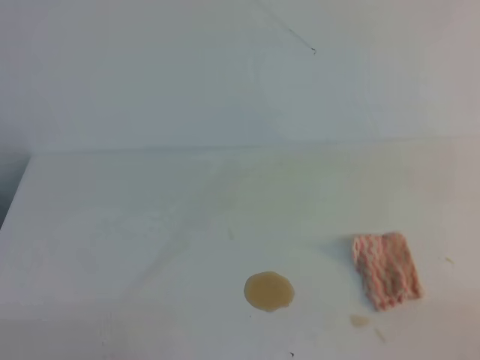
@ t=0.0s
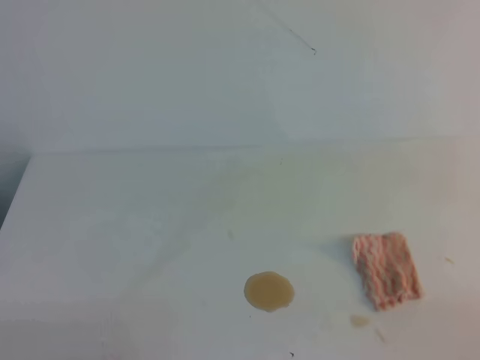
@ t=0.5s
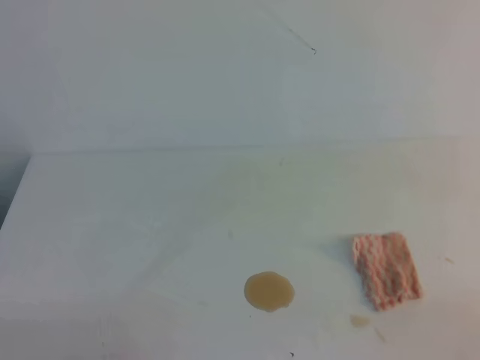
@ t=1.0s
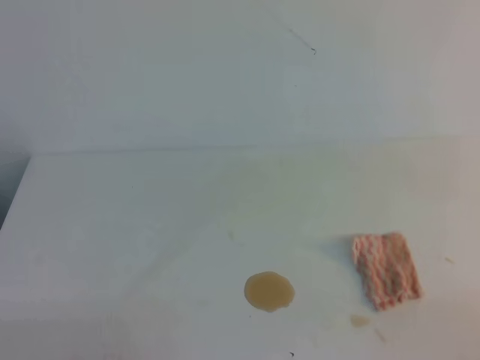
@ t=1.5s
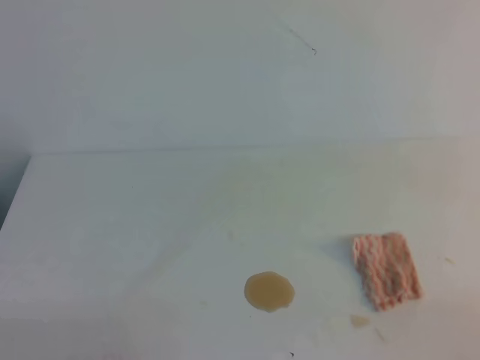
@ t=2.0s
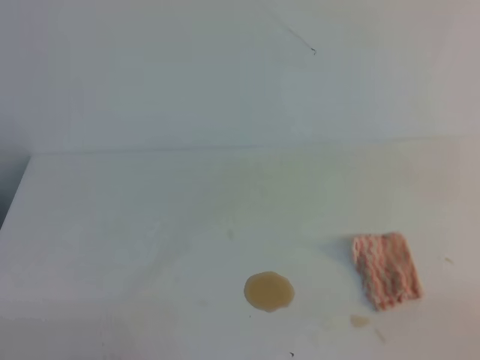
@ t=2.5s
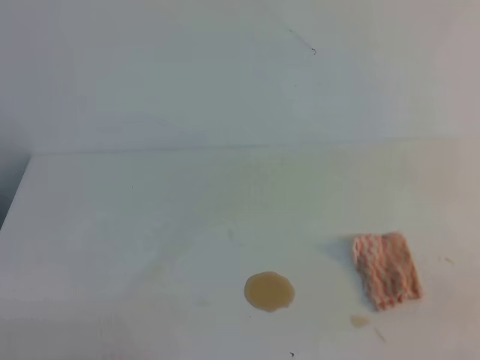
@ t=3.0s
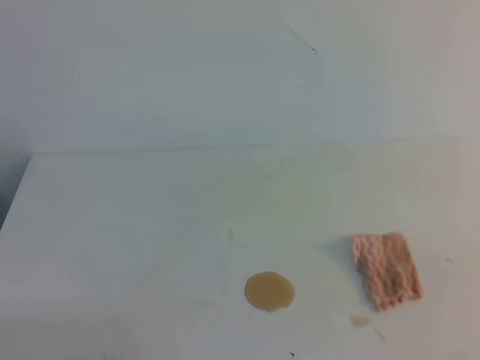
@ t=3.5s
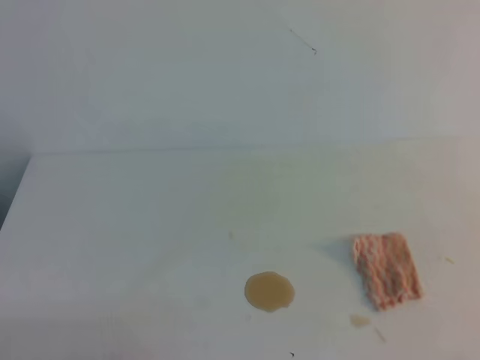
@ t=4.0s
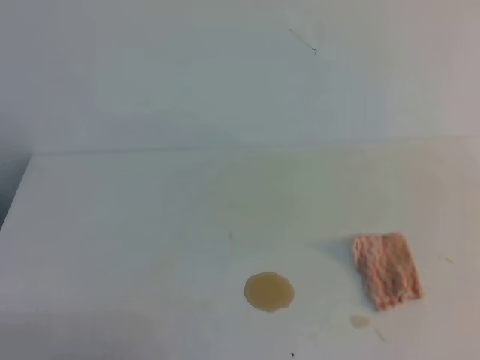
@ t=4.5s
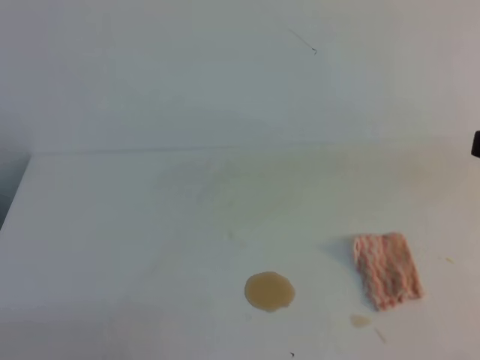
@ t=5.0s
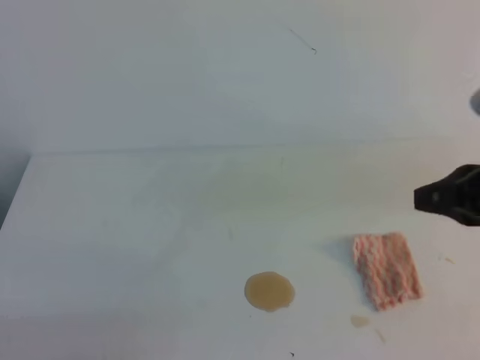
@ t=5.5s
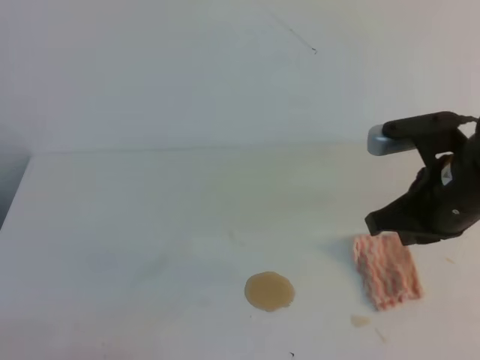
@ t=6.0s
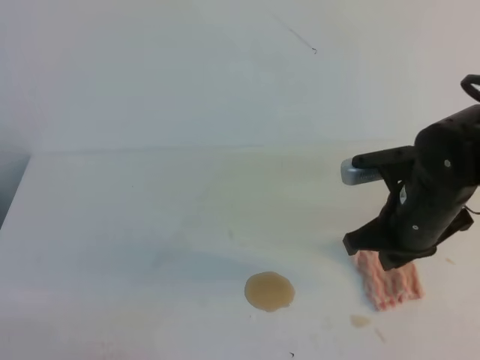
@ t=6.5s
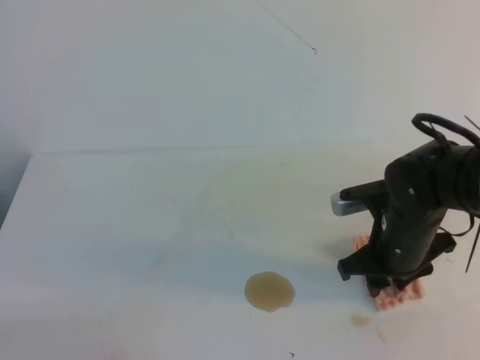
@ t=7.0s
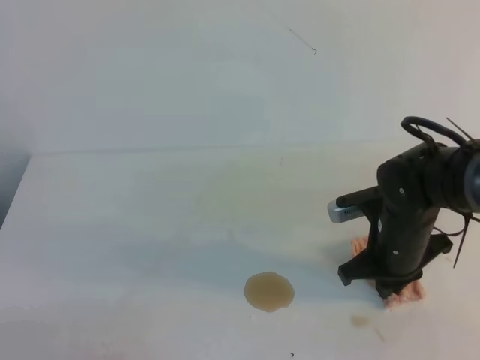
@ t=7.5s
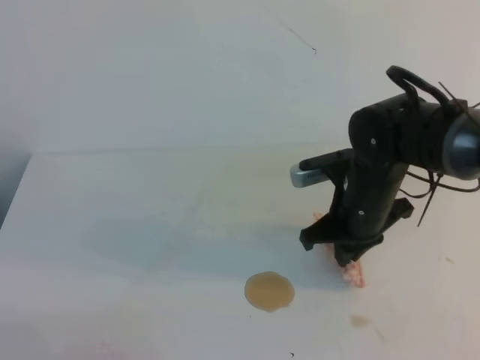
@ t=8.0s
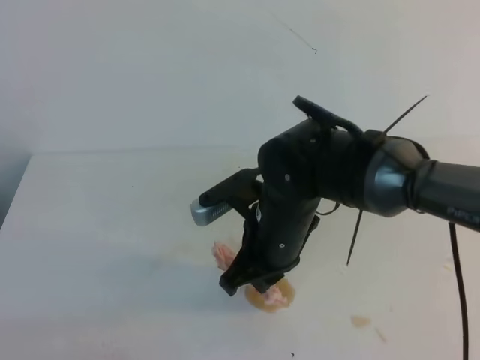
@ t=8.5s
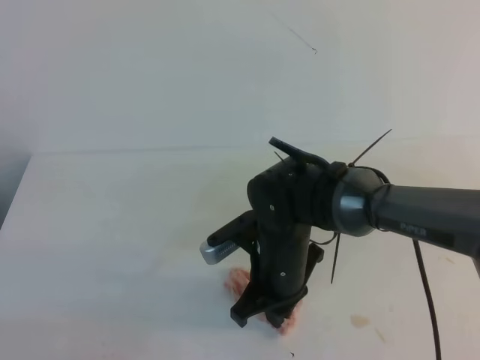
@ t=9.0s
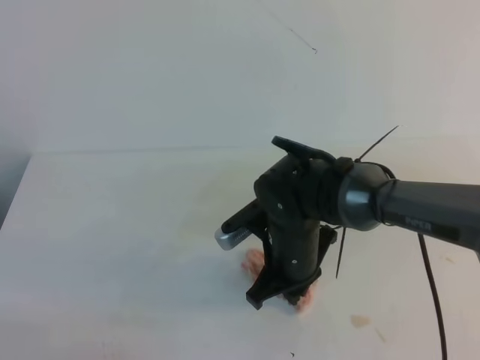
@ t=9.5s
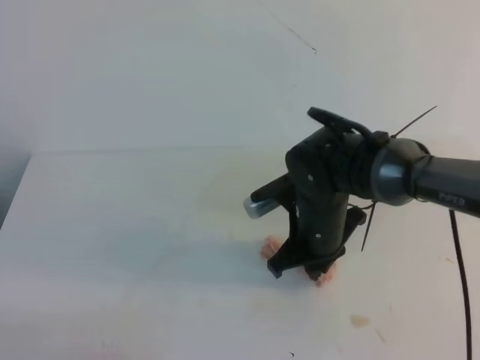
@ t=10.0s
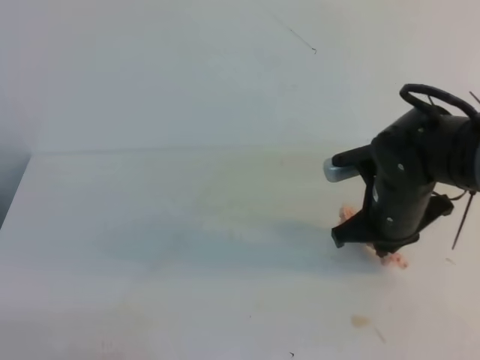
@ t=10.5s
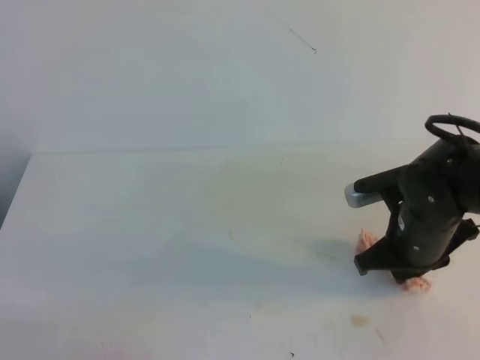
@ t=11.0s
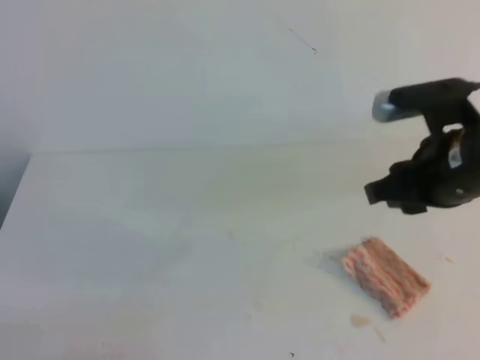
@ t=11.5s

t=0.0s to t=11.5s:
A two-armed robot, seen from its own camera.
t=0.0s to t=2.0s: Both grippers stay put.
t=4.0s to t=6.0s: The right gripper travels forward and to the left by some 25 cm.
t=6.0s to t=7.5s: The right gripper shifts approximately 15 cm downward, and opens and closes again.
t=7.5s to t=9.5s: The right gripper is displaced to the left by approximately 10 cm.
t=9.5s to t=11.5s: The right gripper is displaced to the right and upward by roughly 20 cm, and opens.

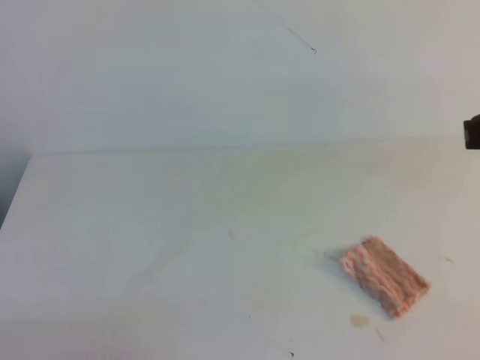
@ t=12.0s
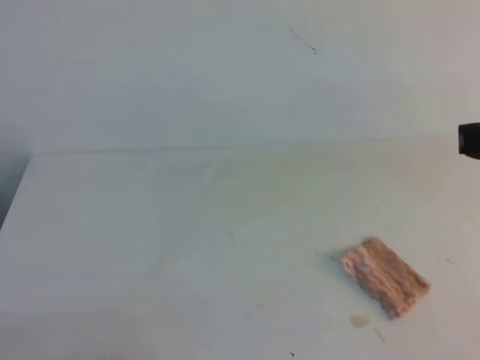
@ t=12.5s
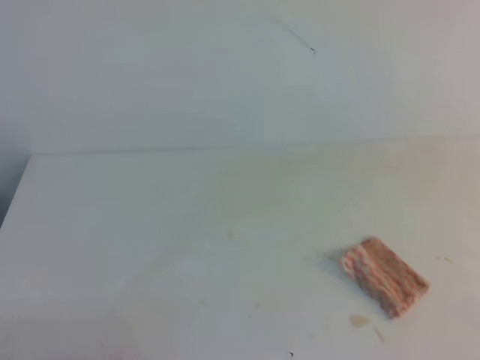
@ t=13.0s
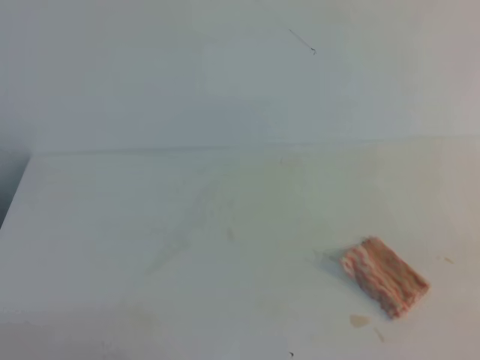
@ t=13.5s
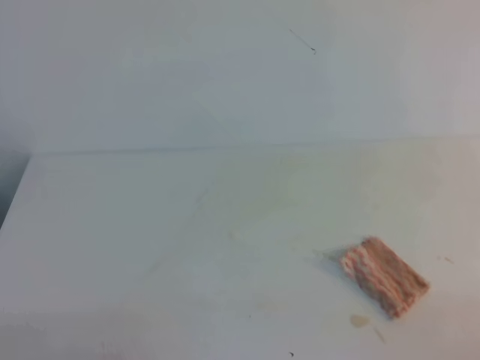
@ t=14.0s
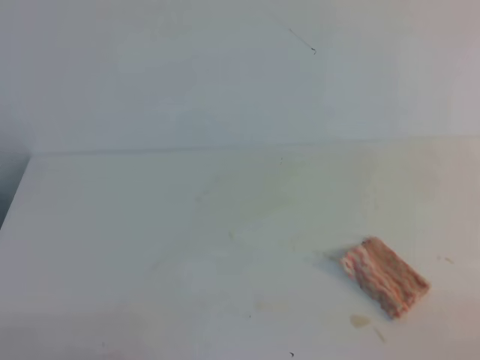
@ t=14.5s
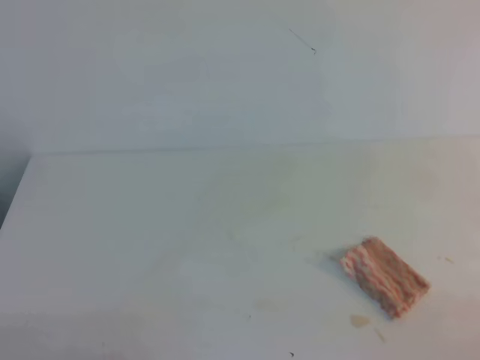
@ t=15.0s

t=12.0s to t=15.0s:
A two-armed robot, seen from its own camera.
t=12.0s to t=13.5s: The right gripper moves backward, to the right and downward, roughly 20 cm.

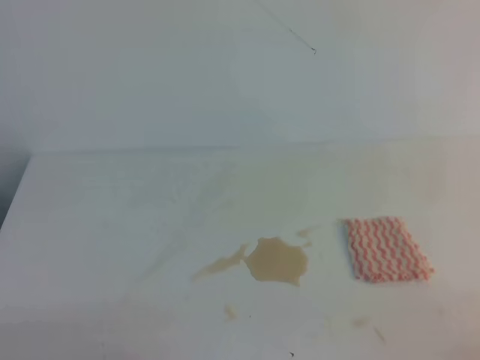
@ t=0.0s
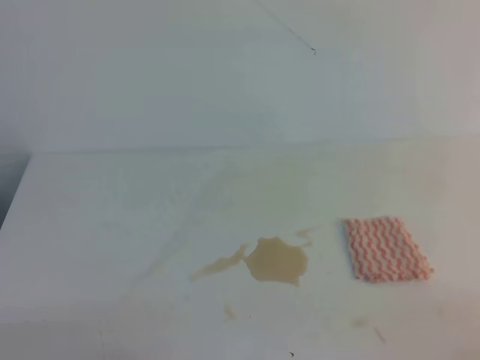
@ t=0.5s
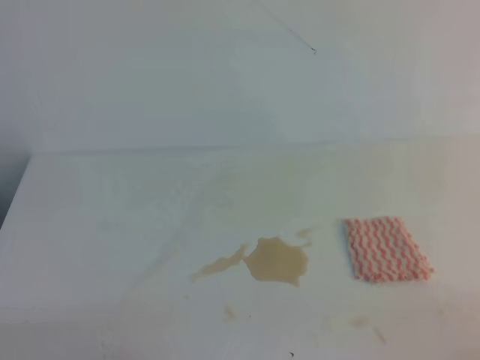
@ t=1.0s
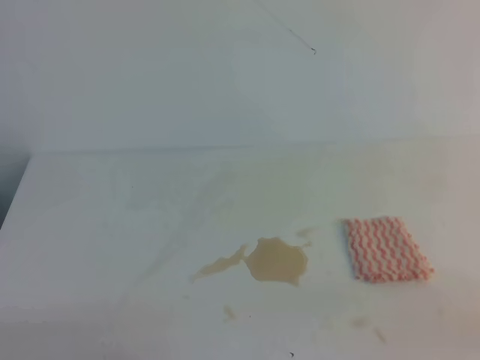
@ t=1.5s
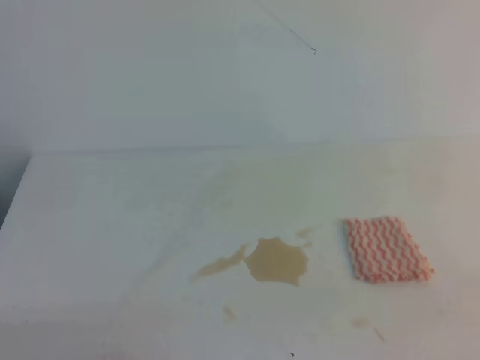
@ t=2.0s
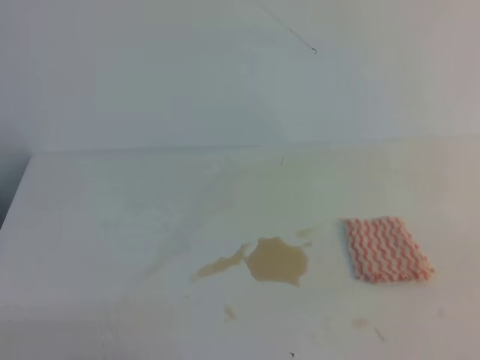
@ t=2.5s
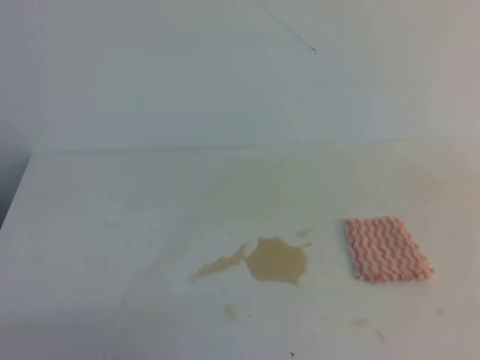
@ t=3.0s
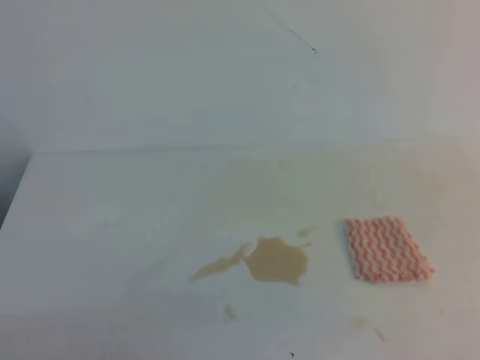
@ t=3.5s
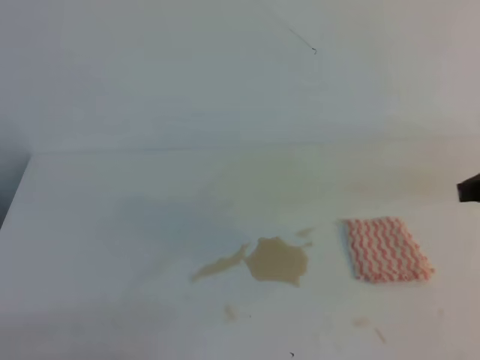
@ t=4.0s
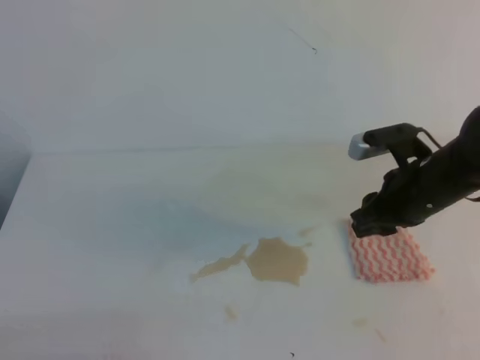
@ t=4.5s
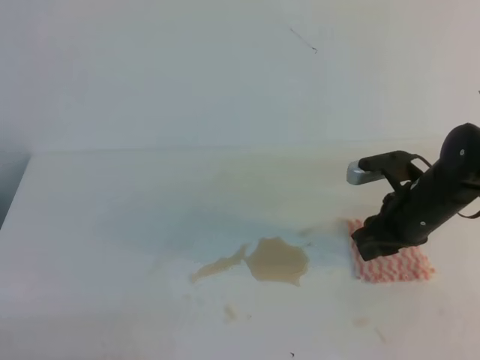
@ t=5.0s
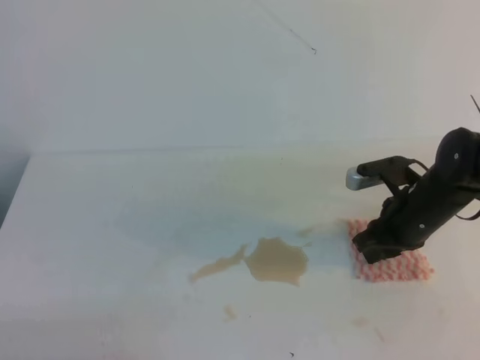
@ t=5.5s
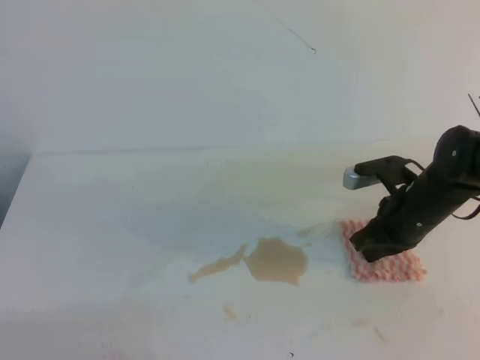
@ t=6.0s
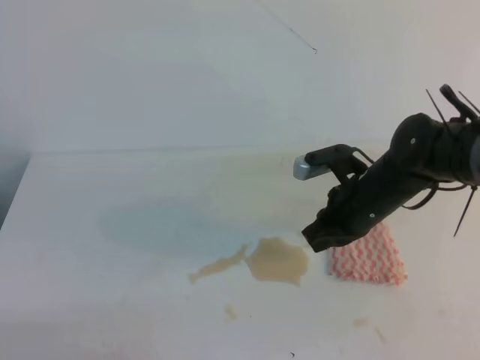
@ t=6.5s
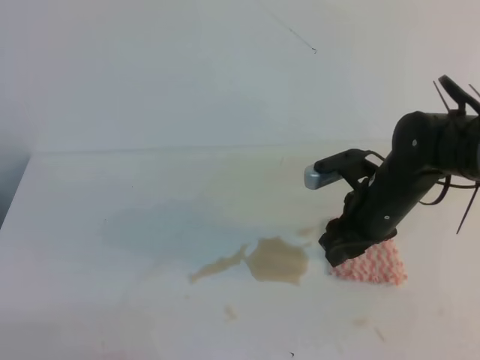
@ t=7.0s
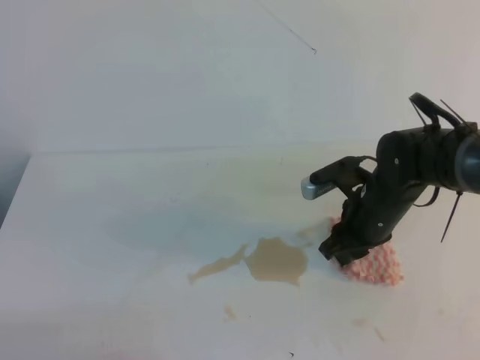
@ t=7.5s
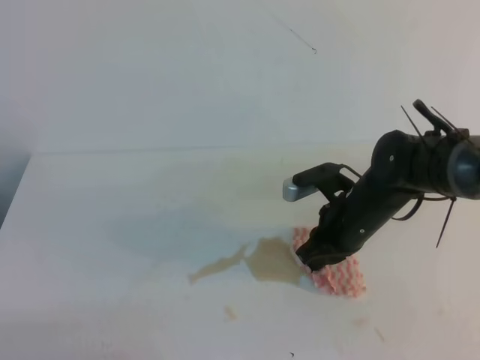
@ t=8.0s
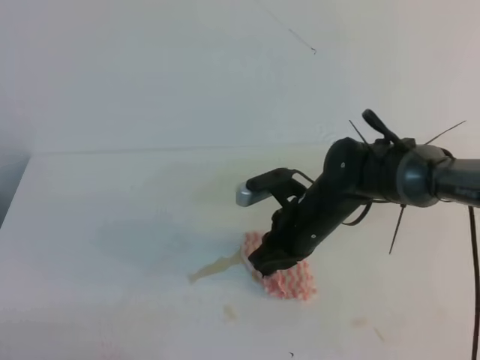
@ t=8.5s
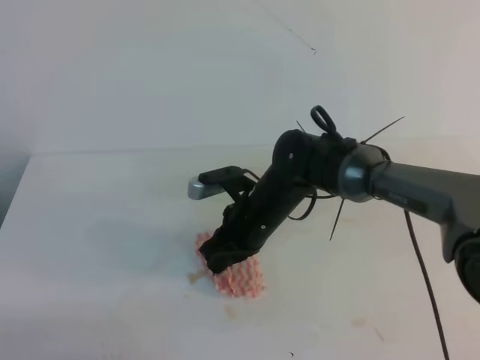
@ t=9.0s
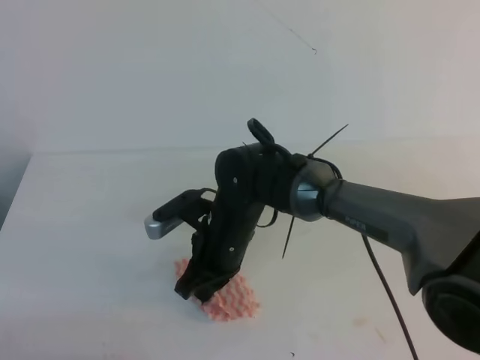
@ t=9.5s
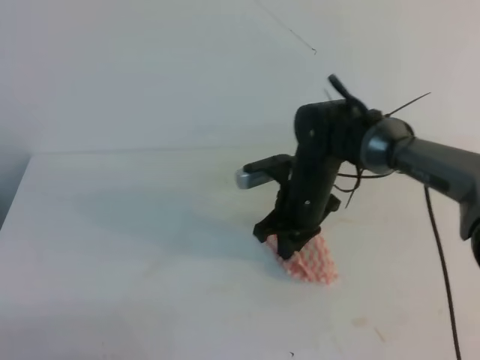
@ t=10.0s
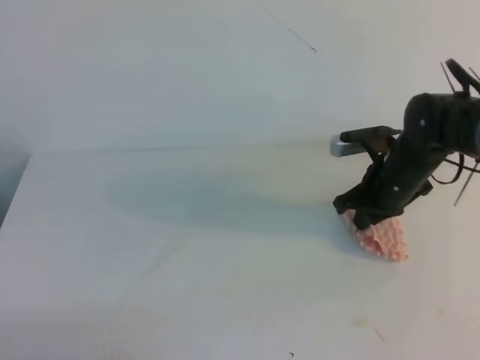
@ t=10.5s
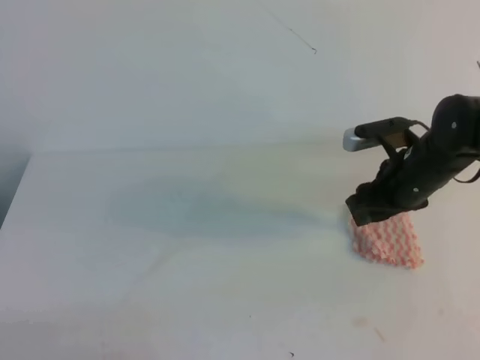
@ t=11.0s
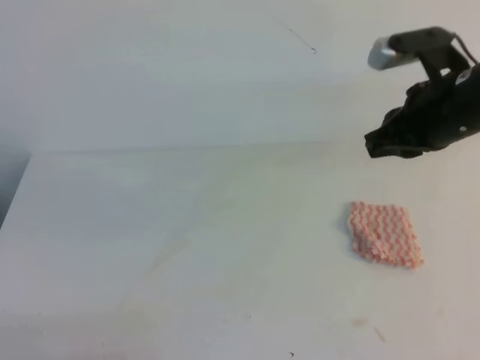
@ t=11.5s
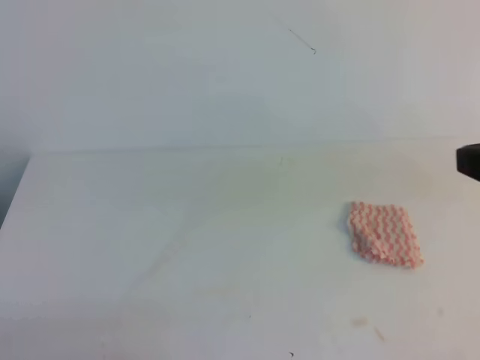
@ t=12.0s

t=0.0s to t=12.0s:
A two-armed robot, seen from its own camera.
t=4.0s to t=6.0s: The right gripper travels downward, to the left and forward by about 15 cm, and opens and closes again.
t=6.0s to t=8.0s: The right gripper moves to the left, roughly 5 cm, and opens, then closes again.
t=8.0s to t=10.0s: The right gripper is displaced to the left by approximately 5 cm.
t=10.0s to t=12.0s: The right gripper travels upward, backward and to the right by approximately 35 cm, and opens and closes again.
